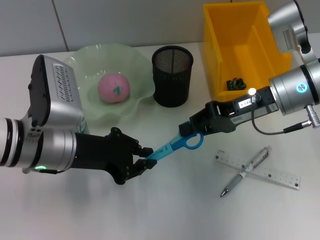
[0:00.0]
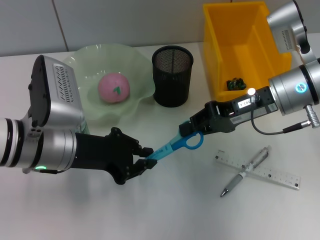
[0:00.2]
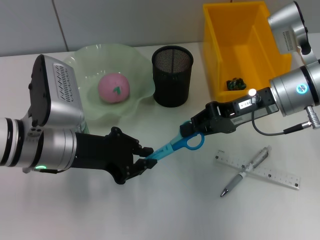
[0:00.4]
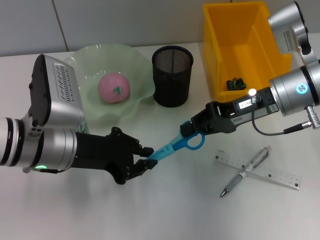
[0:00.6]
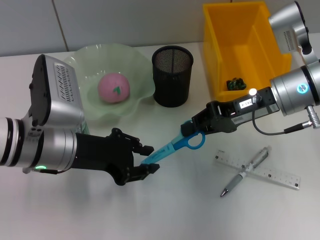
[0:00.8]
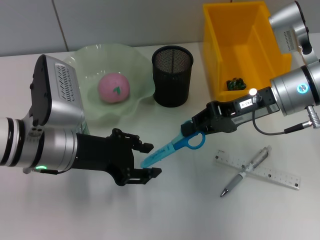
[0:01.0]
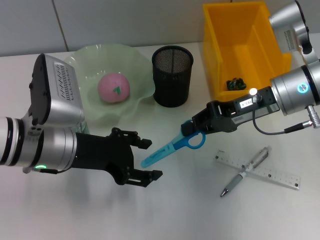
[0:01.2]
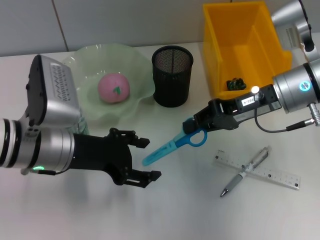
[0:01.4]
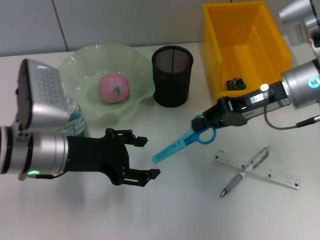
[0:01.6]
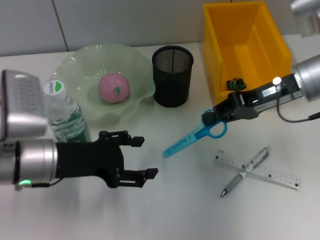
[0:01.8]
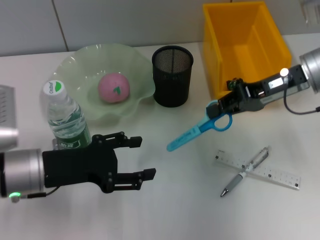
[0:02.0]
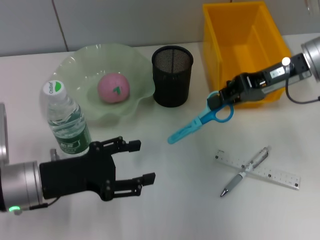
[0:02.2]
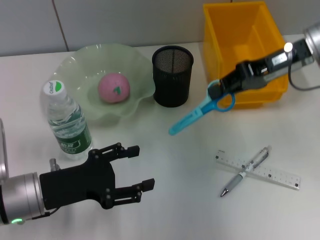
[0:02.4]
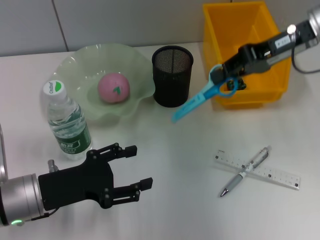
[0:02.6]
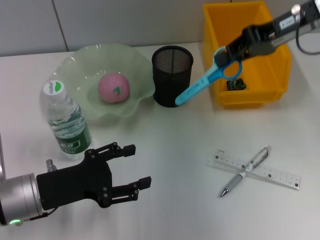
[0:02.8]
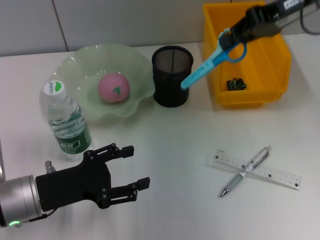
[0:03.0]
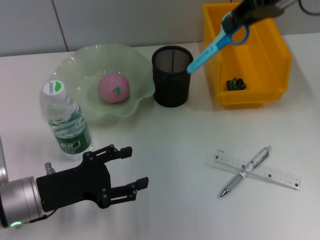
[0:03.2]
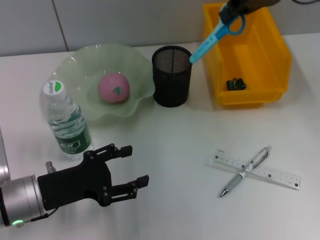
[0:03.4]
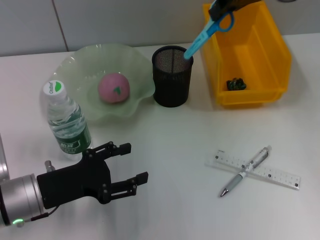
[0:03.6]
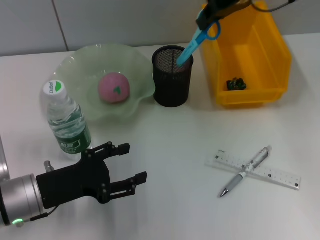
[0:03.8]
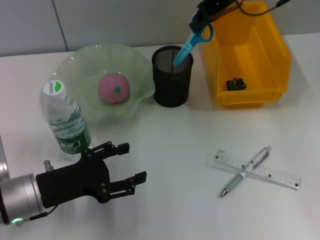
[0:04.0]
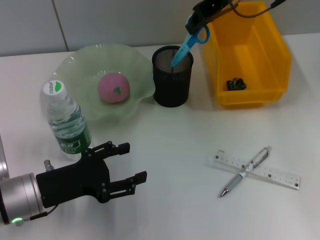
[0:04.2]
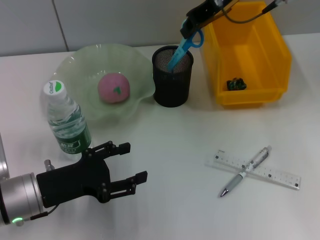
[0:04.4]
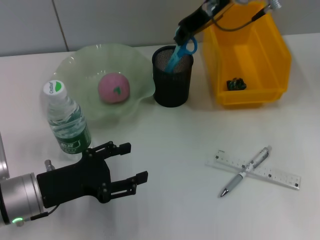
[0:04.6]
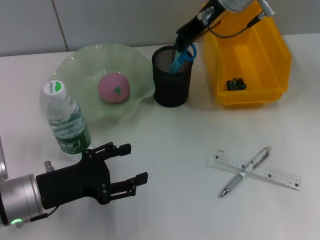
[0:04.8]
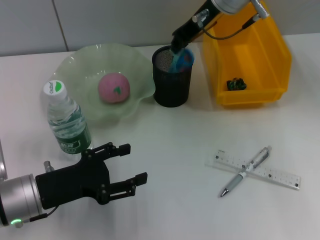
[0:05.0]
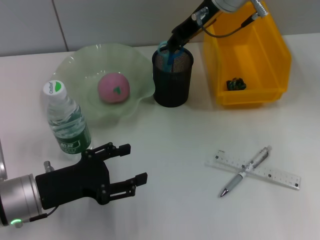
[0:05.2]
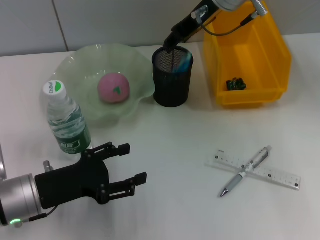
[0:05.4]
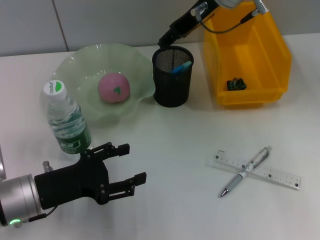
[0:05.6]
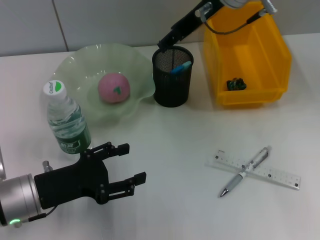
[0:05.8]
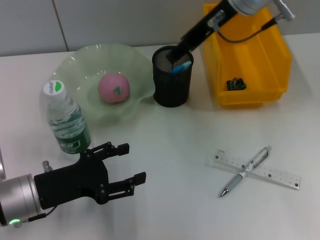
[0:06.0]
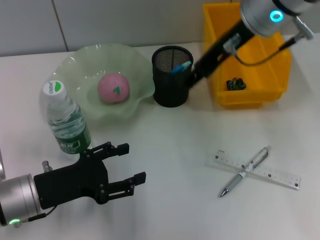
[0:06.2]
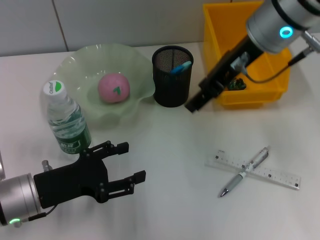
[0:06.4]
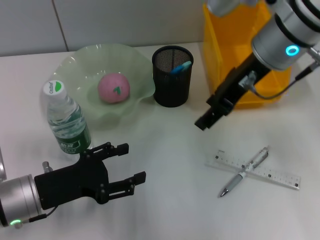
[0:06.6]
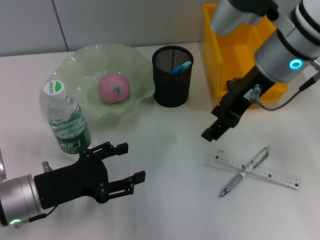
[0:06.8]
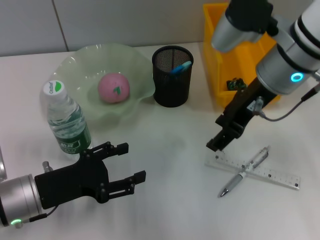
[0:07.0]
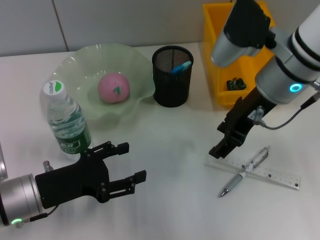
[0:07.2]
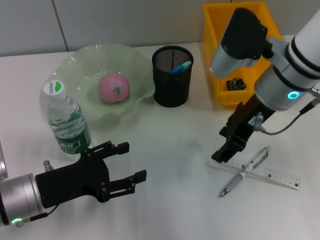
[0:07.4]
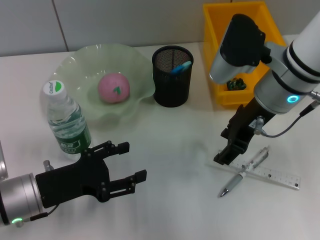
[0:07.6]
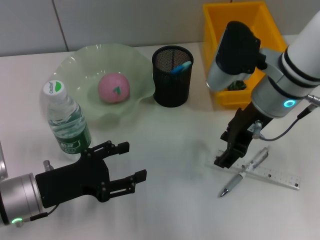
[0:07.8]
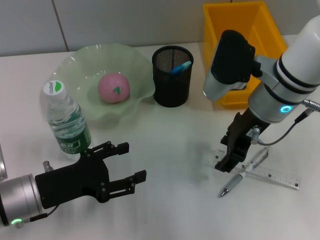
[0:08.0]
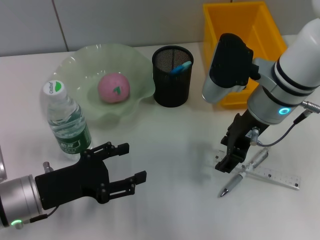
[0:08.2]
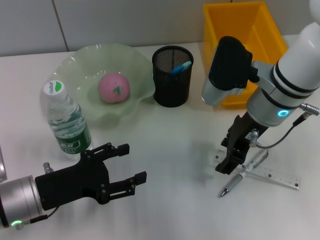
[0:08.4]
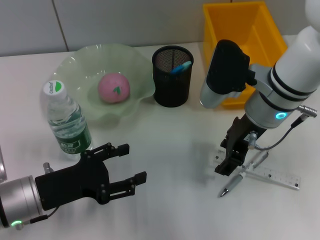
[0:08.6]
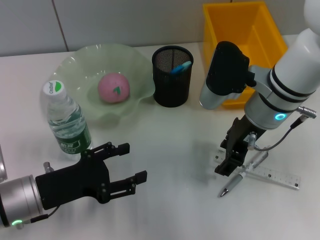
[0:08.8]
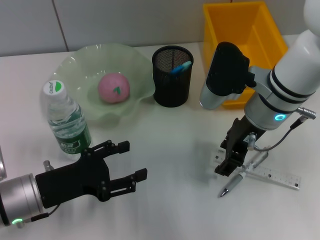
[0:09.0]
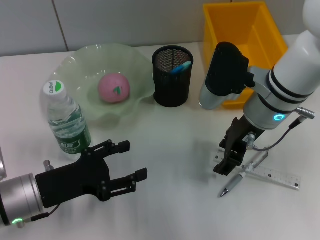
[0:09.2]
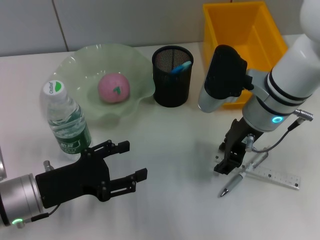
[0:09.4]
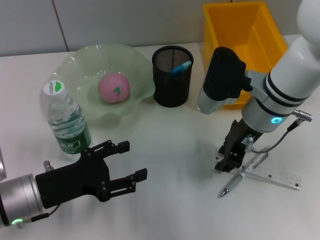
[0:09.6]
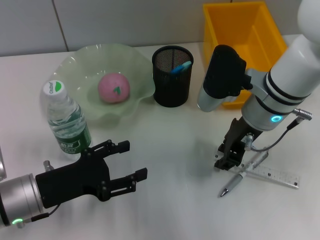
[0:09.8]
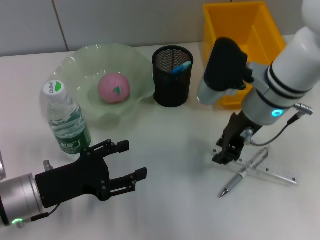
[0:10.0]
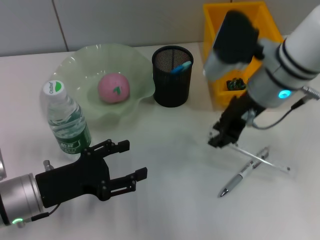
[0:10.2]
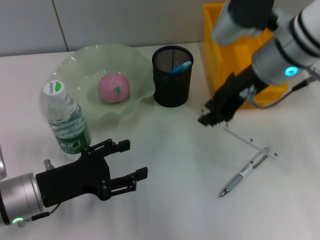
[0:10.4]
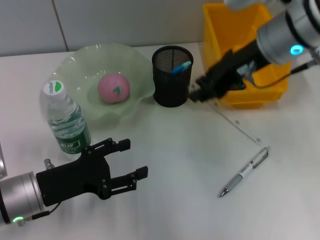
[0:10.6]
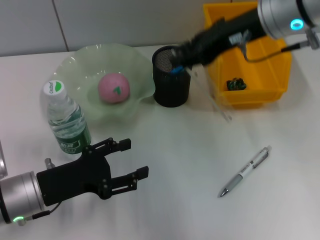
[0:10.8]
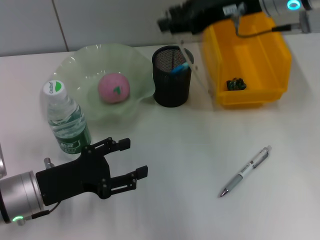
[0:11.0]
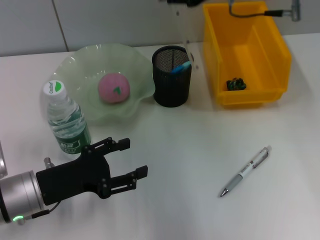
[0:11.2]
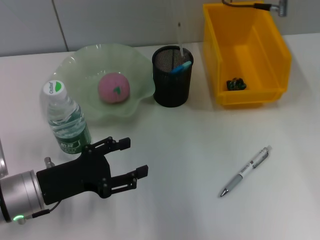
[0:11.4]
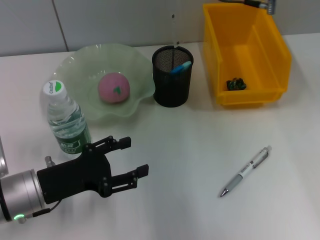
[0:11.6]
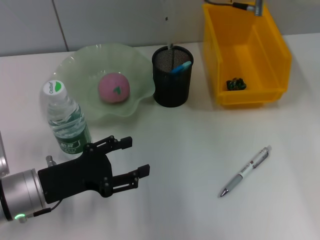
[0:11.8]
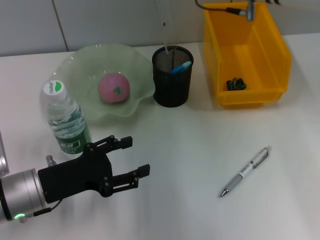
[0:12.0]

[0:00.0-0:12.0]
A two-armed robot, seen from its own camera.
Step, 0:01.0 to 0:05.4: Place the blue scissors into the pen holder with the right hand.
Step, 0:05.6 to 0:09.4: Grab the ruler with the right hand.
0:00.0 to 0:01.6: The left gripper opens.
0:01.6 to 0:03.0: The left gripper moves downward and backward, some 10 cm. Meanwhile the right gripper heads upward and forward, covering about 15 cm.
0:03.0 to 0:04.4: The right gripper goes about 10 cm to the left.
0:04.4 to 0:06.0: The right gripper is displaced backward by some 5 cm, and opens.
0:06.0 to 0:07.6: The right gripper travels downward and backward by some 10 cm.
0:07.6 to 0:09.0: The grippers stay close to where they were, moving slightly.
0:09.0 to 0:10.4: The right gripper moves upward, some 5 cm, and closes.
0:10.4 to 0:12.0: The right gripper is displaced forward by roughly 10 cm.

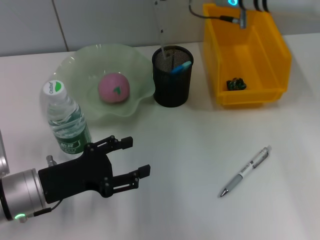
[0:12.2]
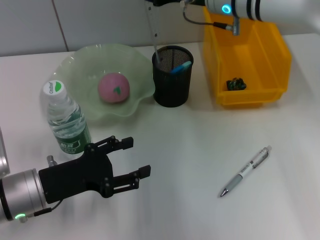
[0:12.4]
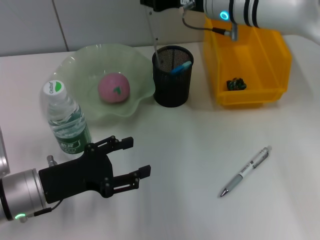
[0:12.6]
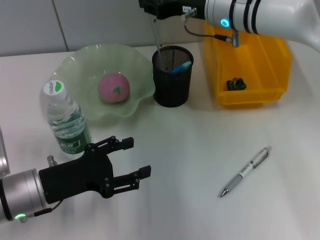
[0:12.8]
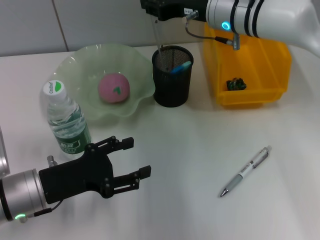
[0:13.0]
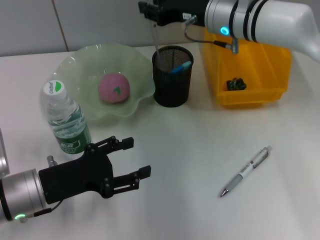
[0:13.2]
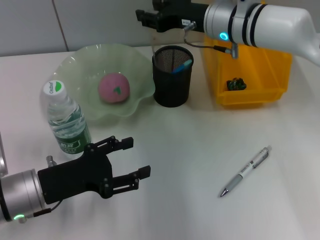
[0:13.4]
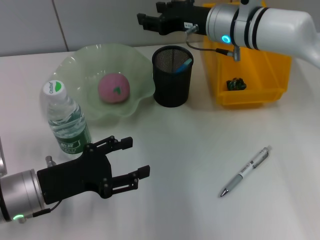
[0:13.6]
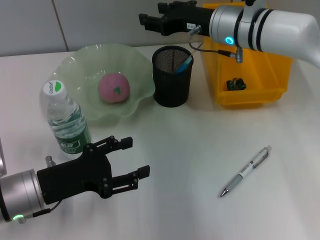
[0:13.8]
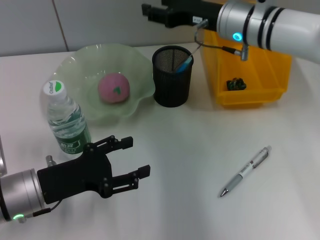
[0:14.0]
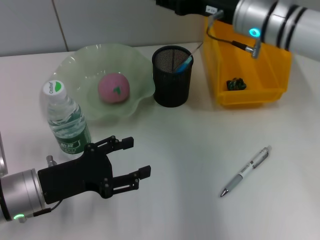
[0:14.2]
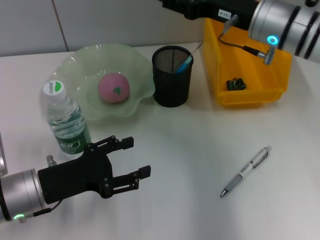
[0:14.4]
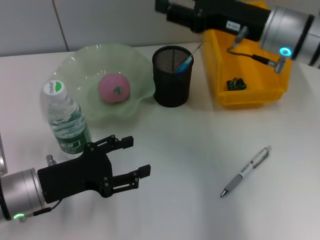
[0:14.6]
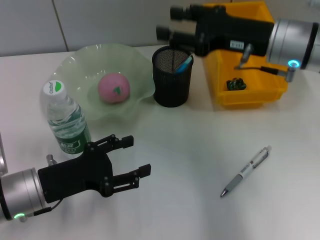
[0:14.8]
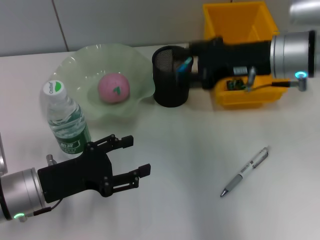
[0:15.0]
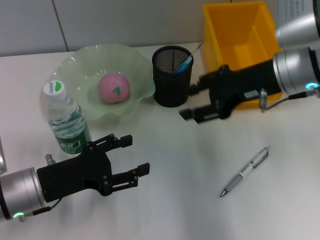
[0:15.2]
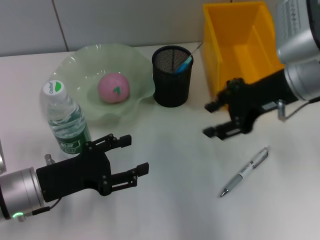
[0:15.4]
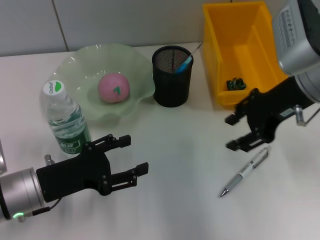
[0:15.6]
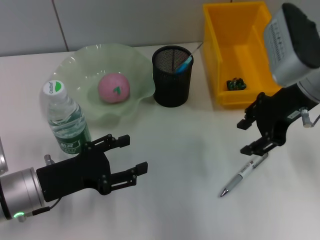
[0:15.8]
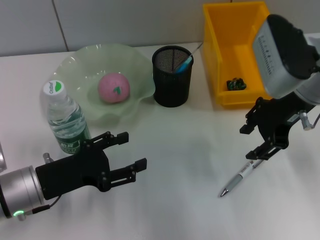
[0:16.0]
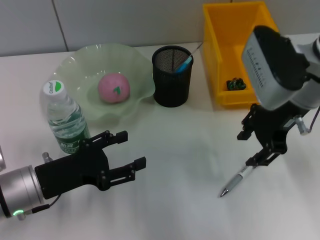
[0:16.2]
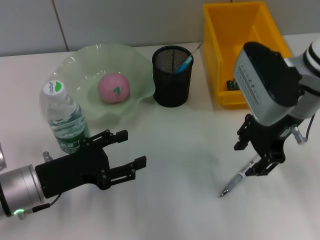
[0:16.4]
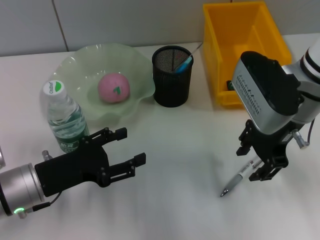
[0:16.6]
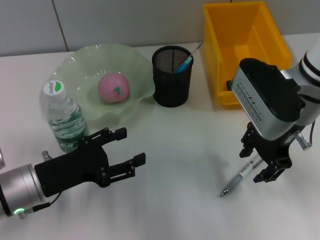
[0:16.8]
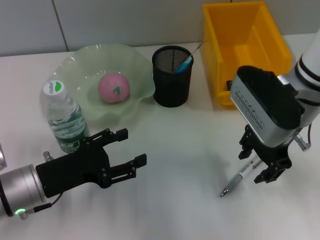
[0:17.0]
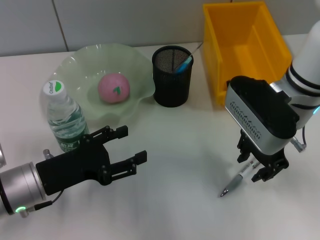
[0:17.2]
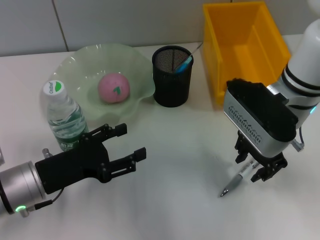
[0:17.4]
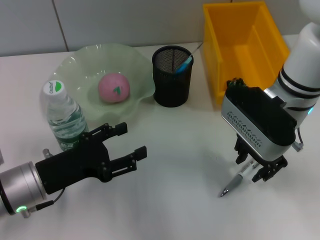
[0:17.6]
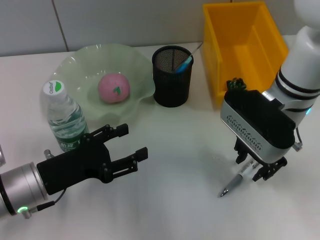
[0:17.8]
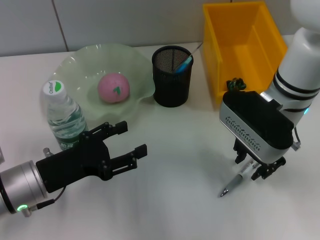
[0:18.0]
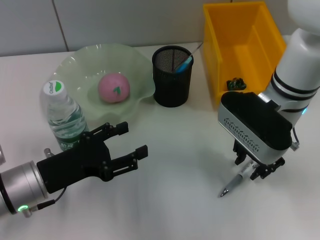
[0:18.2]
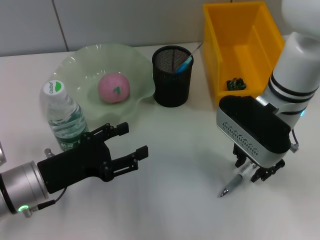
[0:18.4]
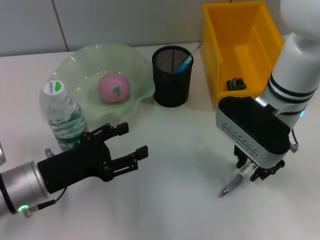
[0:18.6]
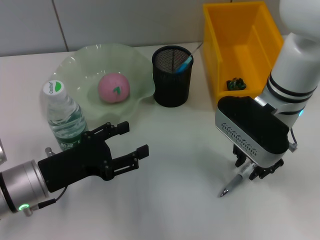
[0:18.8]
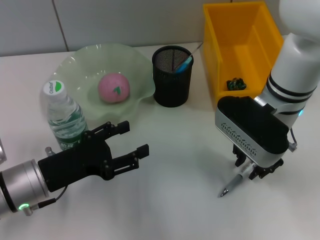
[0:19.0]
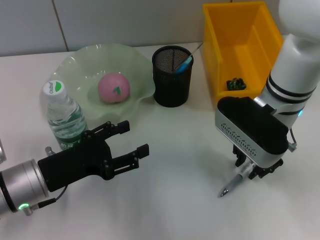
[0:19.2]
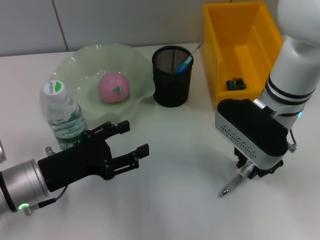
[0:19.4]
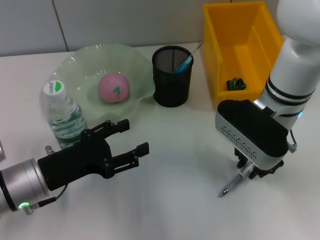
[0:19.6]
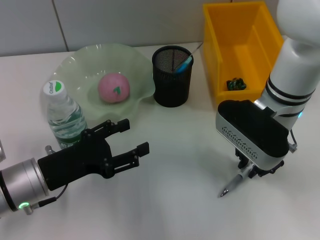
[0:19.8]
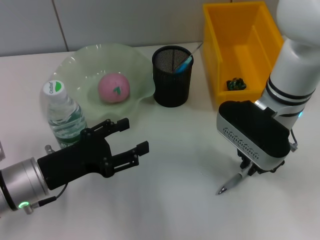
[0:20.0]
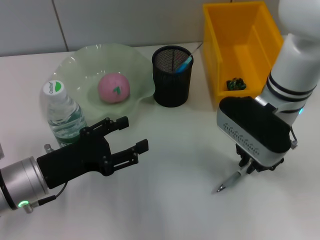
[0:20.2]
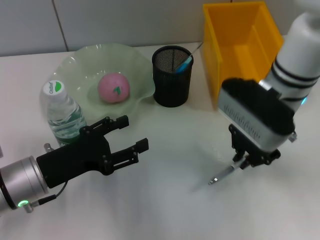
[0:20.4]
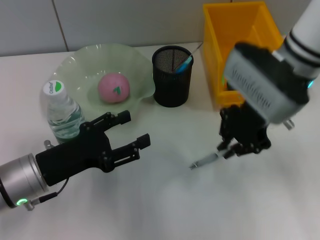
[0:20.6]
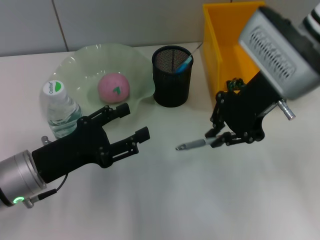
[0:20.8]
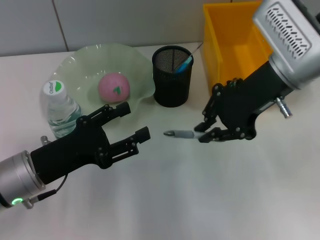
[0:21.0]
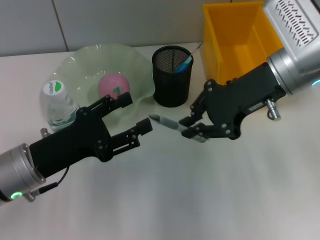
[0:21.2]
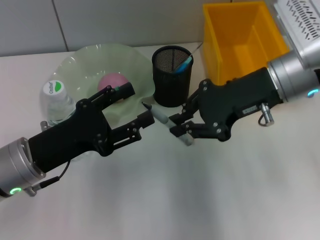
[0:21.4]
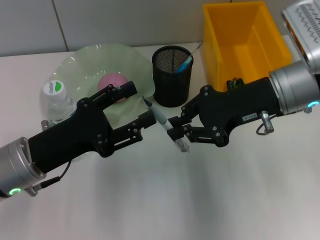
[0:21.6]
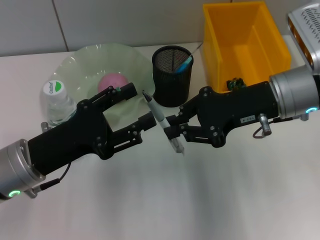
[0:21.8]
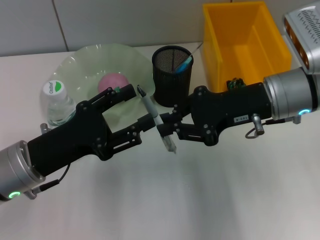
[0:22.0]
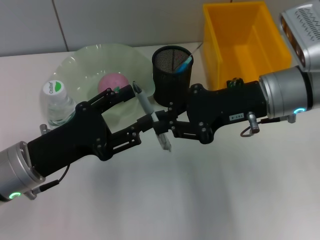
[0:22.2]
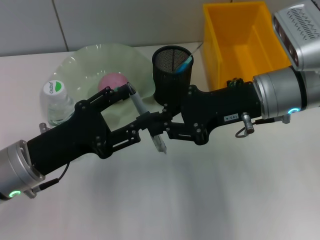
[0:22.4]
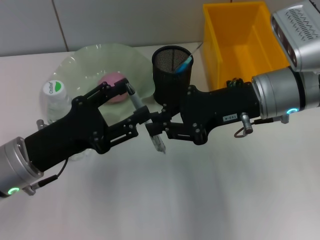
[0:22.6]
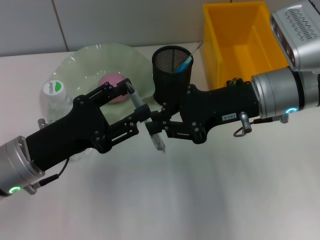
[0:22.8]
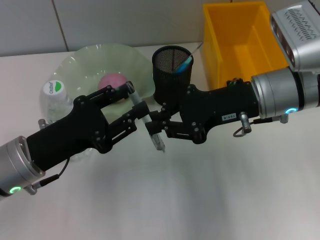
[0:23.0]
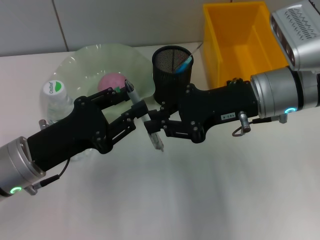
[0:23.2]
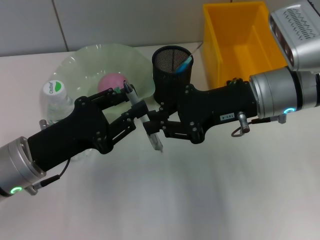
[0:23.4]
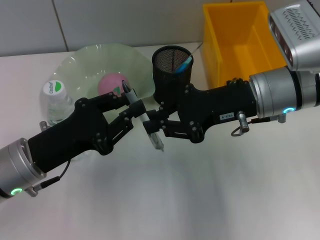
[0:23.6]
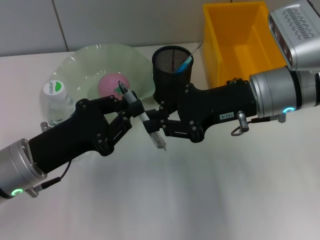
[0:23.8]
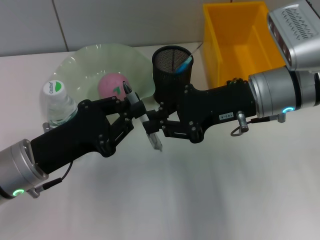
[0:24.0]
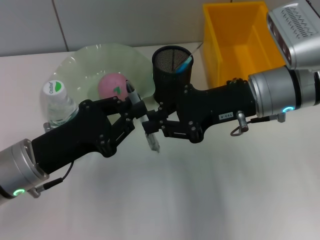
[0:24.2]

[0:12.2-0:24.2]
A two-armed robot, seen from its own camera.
Step, 0:13.8 to 0:19.8: Grab the gray spring-action pen with the right hand.
0:12.2 to 0:13.8: The right gripper moves downward, roughly 5 cm.
0:13.8 to 0:15.2: The right gripper shifts approximately 10 cm backward and to the right.
0:18.2 to 0:19.8: The two grippers keep their place.
0:19.8 to 0:21.2: The right gripper travels upward by some 5 cm.
0:21.2 to 0:22.6: The right gripper shifts by about 5 cm.
0:22.6 to 0:24.2: The left gripper closes up.
